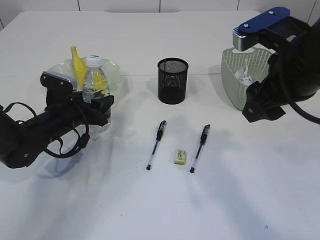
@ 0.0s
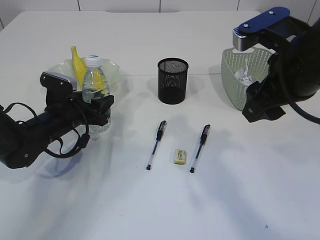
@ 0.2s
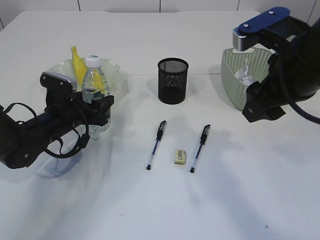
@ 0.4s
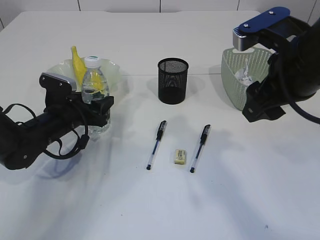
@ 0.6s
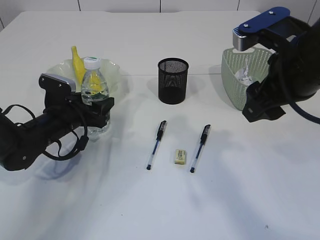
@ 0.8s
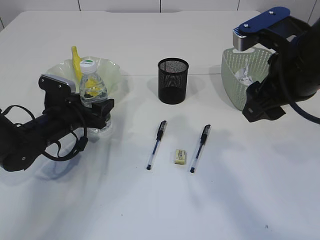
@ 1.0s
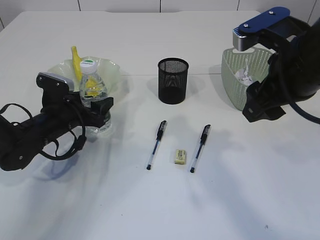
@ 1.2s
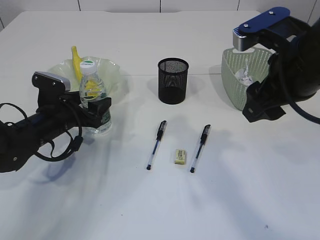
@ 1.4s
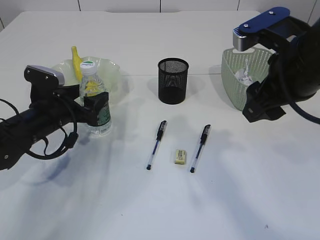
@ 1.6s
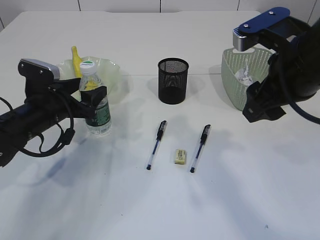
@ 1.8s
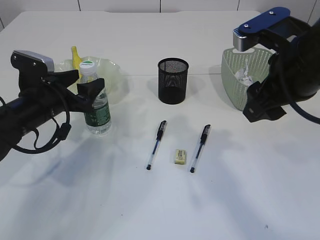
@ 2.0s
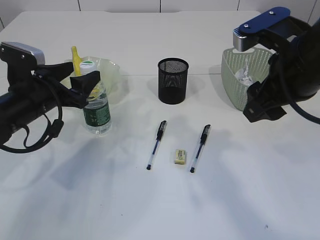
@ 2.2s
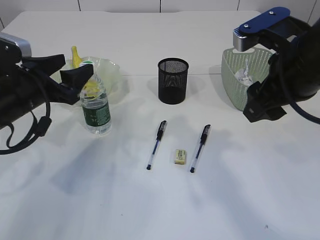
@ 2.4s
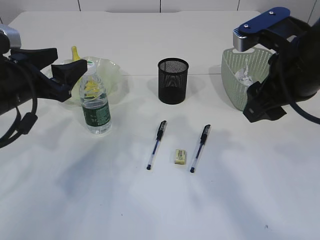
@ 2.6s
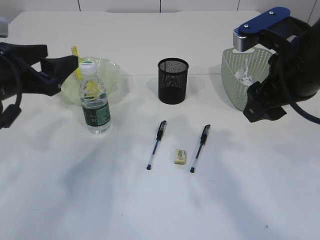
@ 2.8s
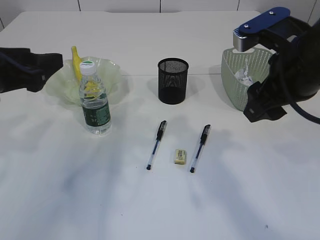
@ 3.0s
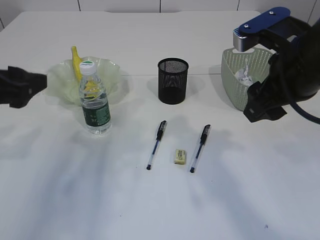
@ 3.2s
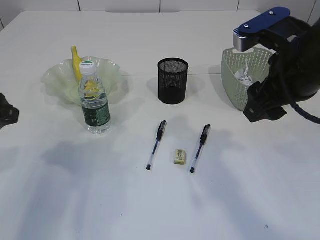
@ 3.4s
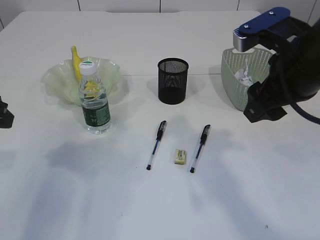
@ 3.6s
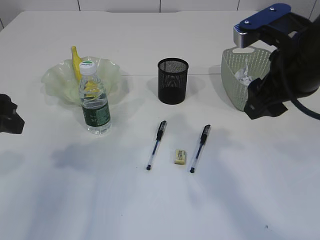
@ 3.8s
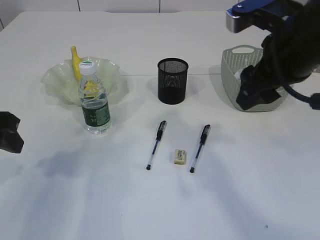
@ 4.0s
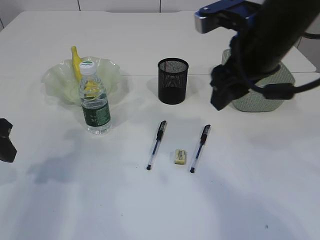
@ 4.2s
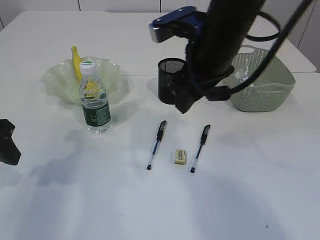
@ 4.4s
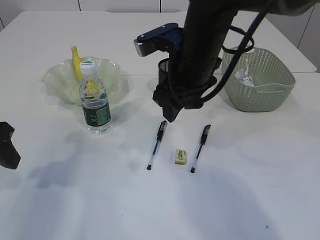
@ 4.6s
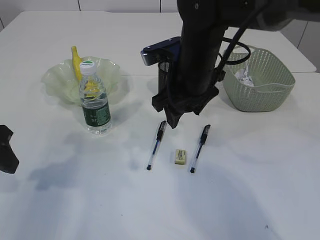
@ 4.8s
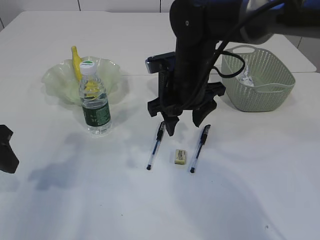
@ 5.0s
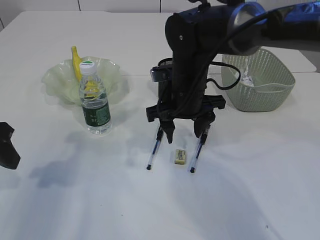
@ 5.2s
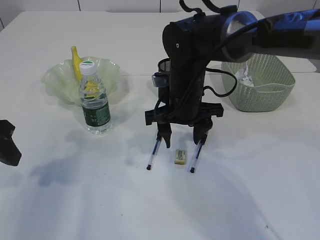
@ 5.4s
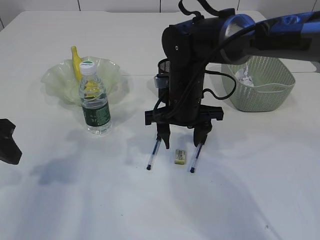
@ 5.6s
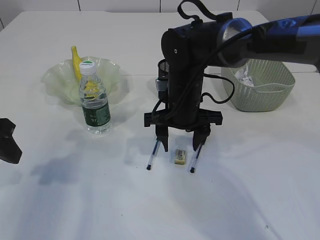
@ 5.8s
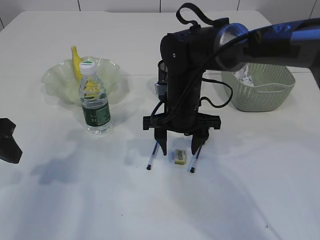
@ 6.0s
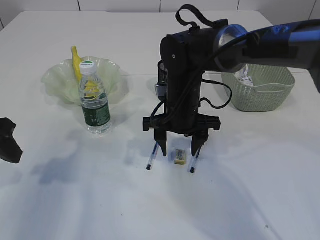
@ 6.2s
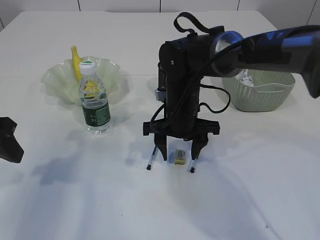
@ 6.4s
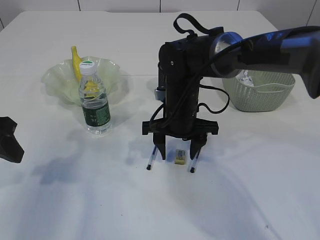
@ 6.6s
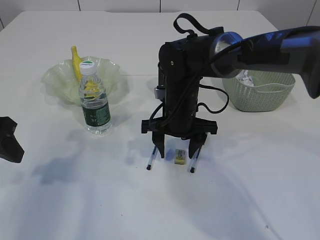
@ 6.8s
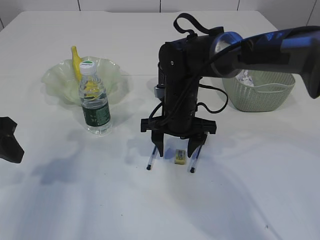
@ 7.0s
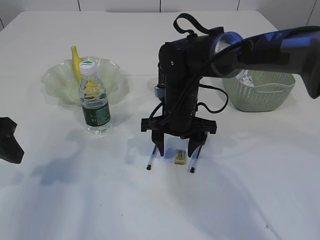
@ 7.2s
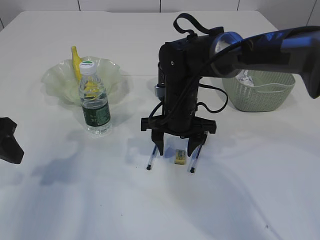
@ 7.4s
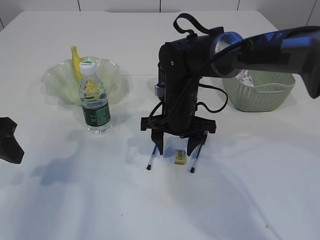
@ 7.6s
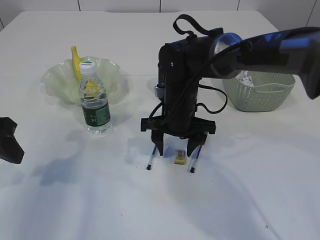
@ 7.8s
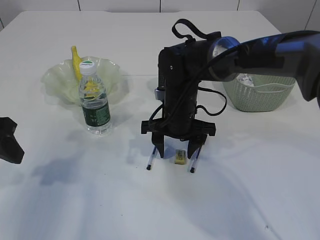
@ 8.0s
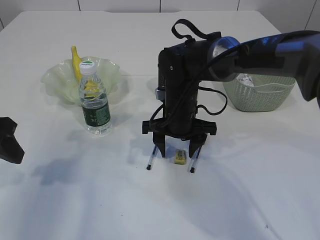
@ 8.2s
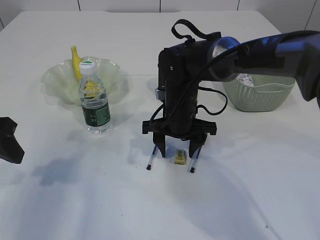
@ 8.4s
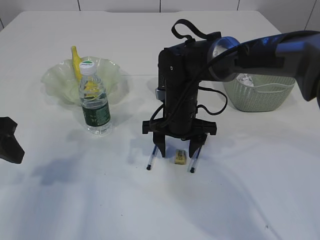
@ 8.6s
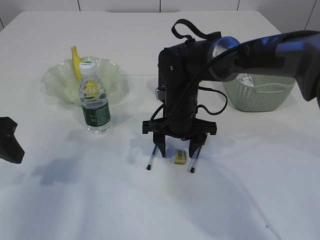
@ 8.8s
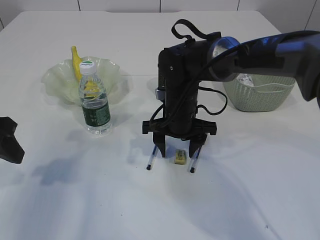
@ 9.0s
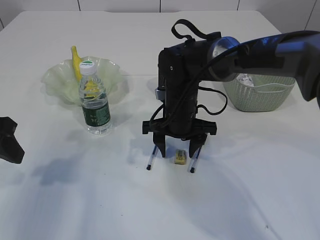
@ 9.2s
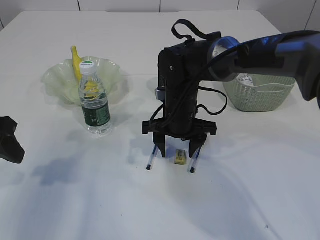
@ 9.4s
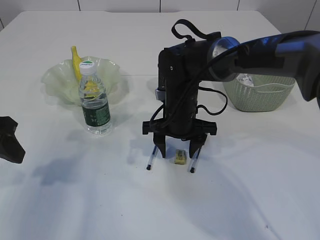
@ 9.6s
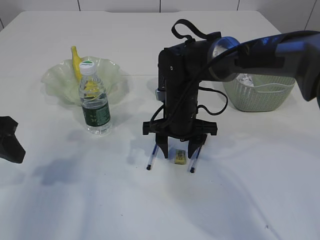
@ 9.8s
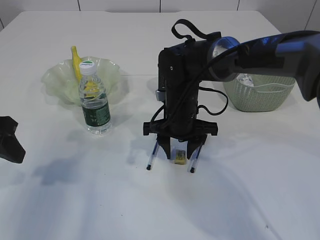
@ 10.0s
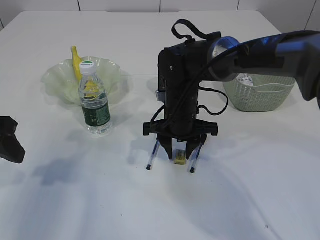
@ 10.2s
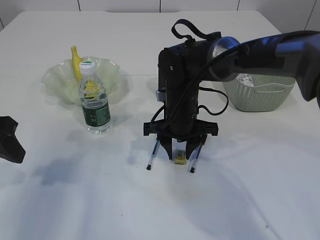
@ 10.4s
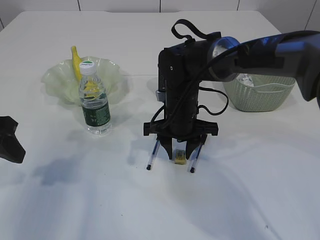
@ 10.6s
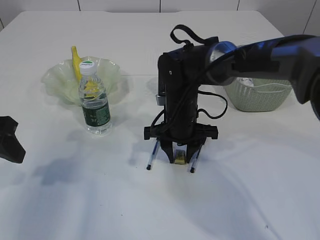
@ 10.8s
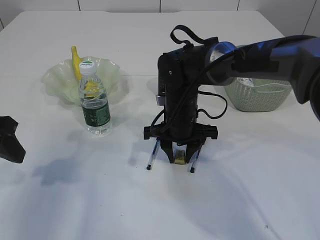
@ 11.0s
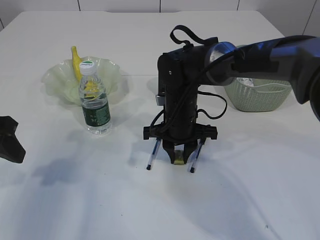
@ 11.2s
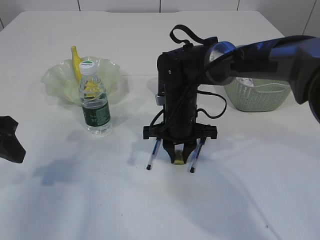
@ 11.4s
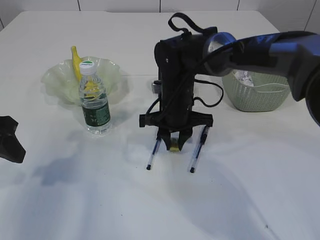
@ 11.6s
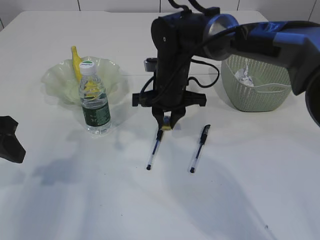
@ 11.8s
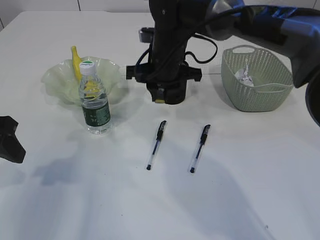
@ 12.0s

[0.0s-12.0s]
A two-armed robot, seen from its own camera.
Step, 0.0s to 2.6s: Place the bottle.
Step, 2.8s to 11.6s: Pick up the eraser.
0.0s to 1.6s: The left gripper opens up.
1.6s to 3.0s: The left gripper is displaced upward and backward by some 15 cm.
3.0s to 4.4s: The left gripper shifts by roughly 5 cm. Meanwhile the right gripper is displaced to the left and forward by approximately 10 cm.
4.4s to 6.0s: The right gripper moves downward, roughly 15 cm.
6.0s to 7.6s: The grippers make only small movements.
7.6s to 10.4s: Both grippers stay put.
10.4s to 12.0s: The right gripper heads upward, covering about 10 cm.

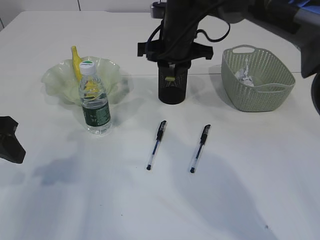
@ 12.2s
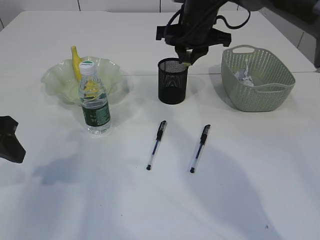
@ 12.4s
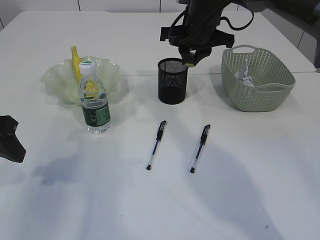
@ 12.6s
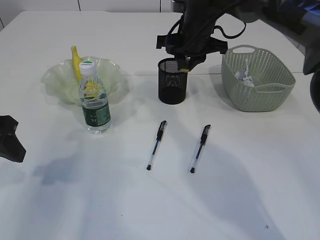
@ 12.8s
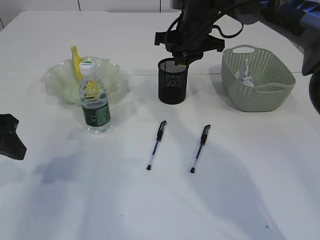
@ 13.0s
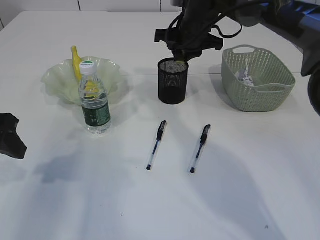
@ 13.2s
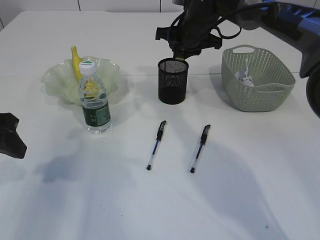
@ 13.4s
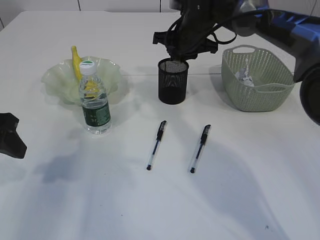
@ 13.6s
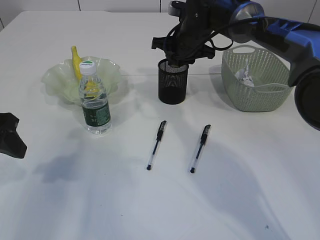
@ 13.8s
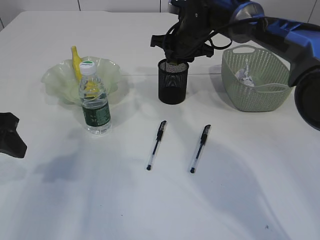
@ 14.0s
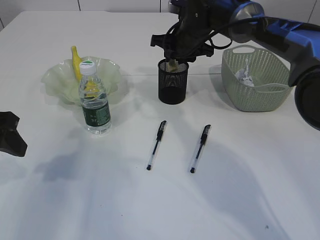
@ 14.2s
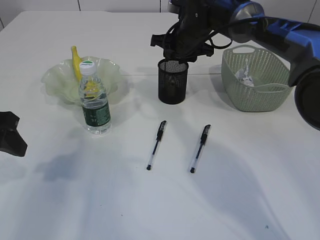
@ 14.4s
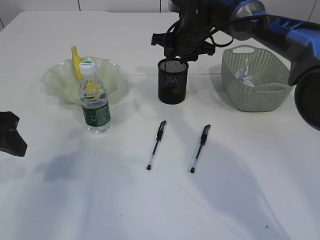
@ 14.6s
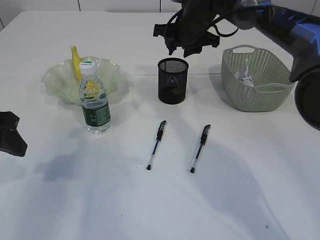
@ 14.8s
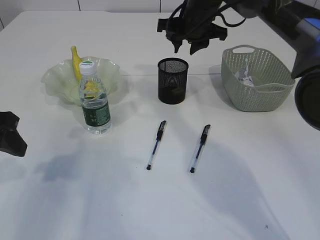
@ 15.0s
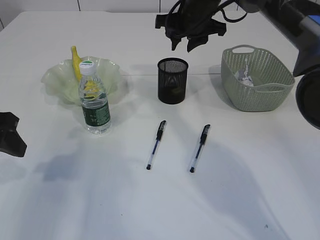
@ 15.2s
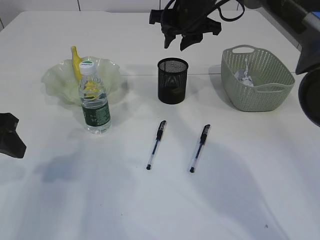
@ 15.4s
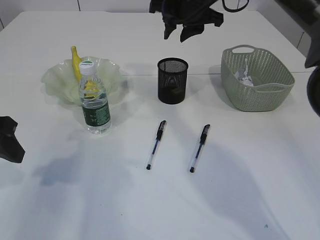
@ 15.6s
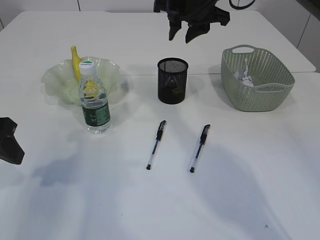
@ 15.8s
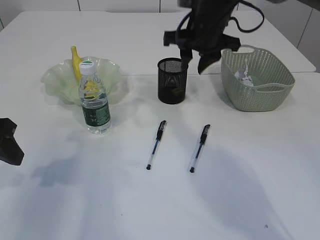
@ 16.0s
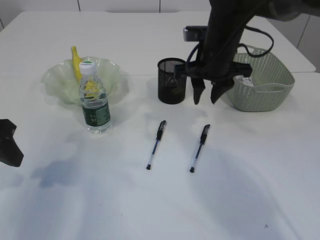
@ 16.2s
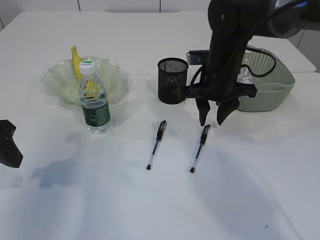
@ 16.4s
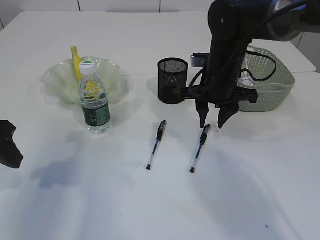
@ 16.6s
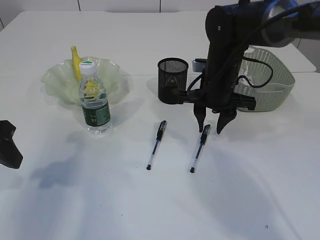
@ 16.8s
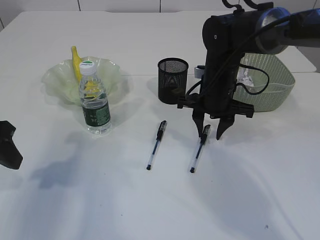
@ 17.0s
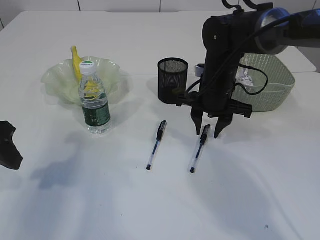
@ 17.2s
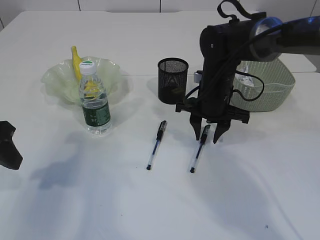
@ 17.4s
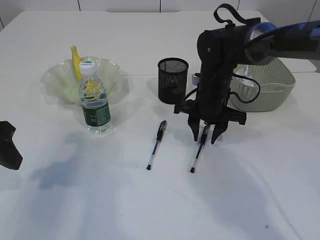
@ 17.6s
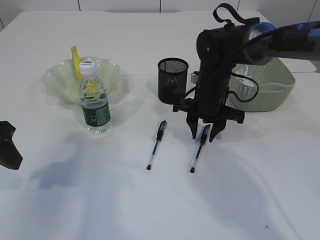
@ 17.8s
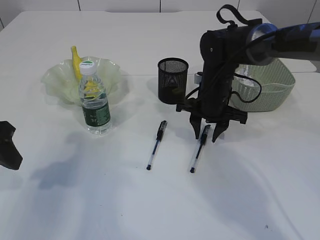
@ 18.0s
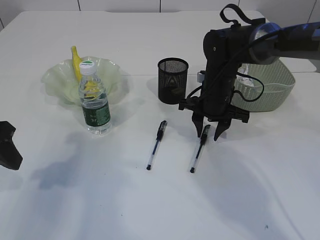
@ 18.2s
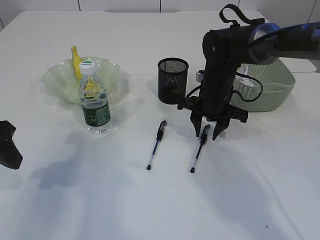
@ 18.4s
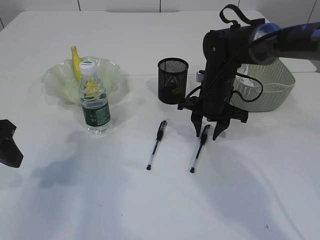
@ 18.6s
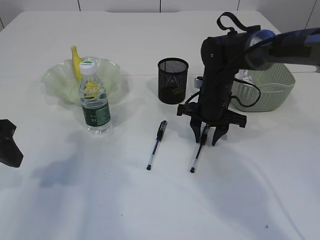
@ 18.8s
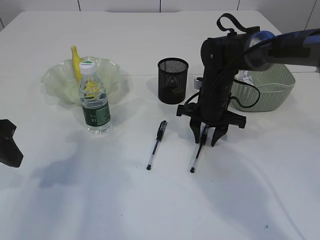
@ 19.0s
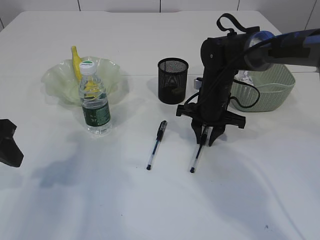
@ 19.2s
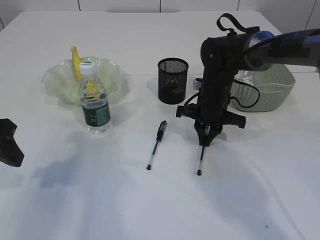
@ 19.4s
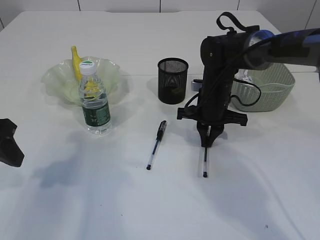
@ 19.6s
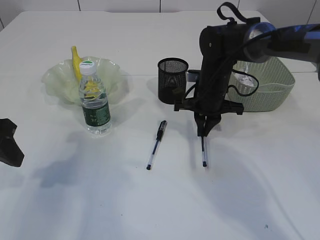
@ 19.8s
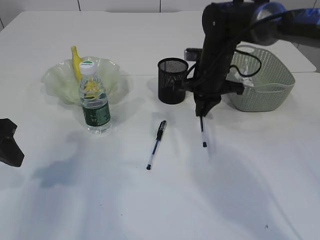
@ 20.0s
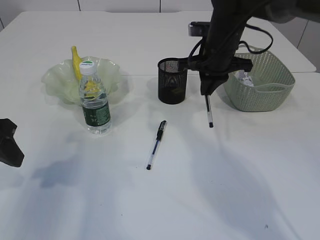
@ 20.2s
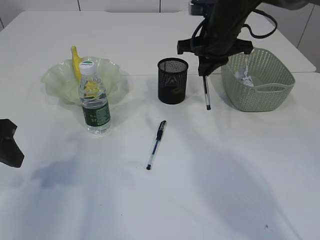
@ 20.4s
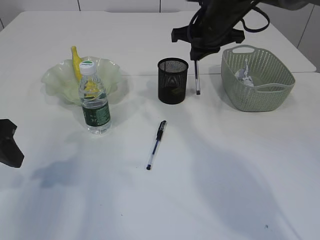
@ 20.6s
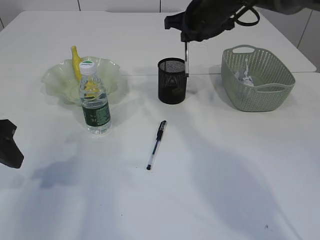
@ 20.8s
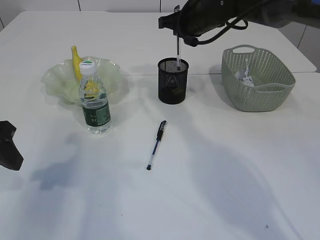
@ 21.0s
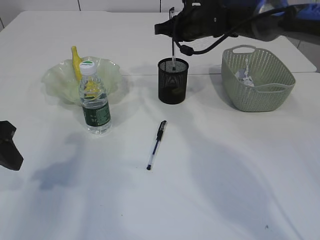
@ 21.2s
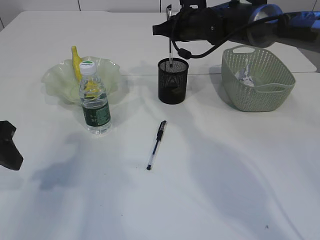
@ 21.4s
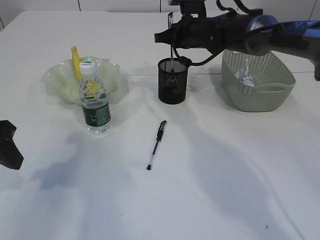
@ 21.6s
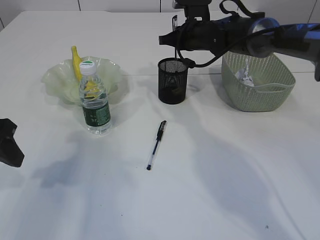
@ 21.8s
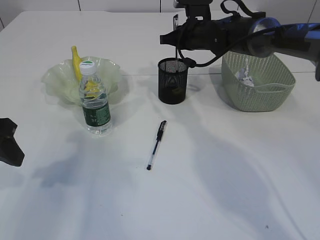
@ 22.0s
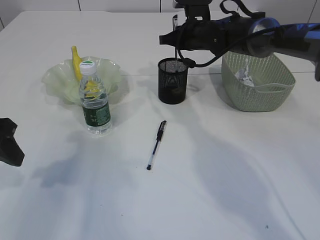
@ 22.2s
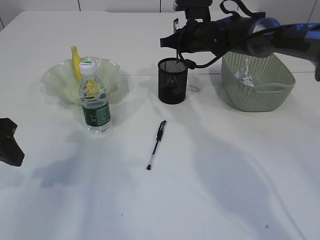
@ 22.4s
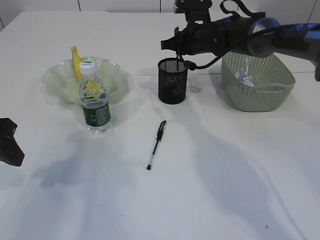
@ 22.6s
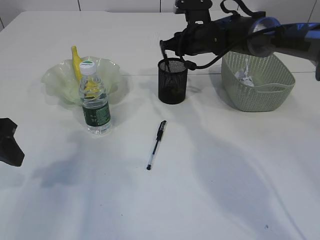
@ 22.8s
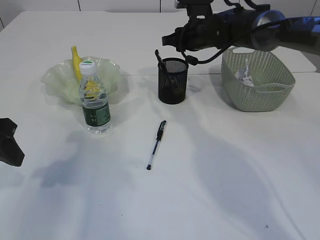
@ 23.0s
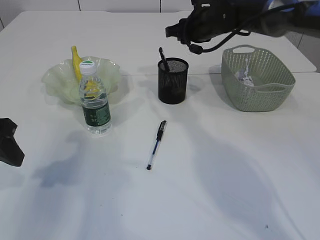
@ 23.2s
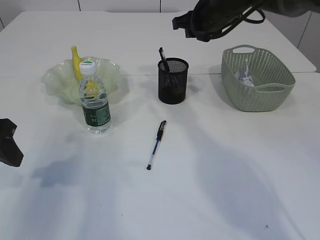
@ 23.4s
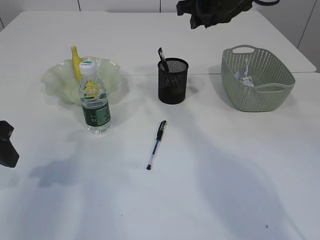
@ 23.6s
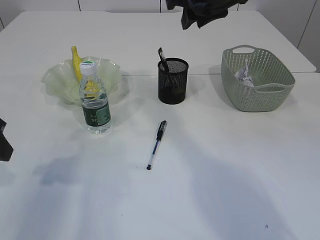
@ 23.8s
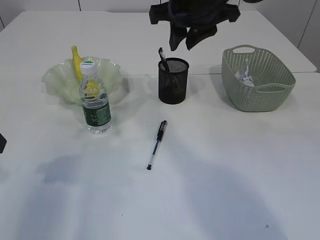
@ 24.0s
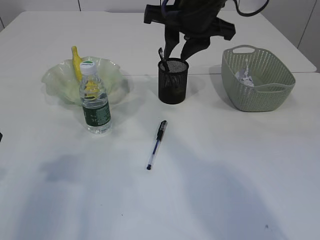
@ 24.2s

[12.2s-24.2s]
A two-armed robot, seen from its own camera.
Step, 12.2s to 15.8s: Place the eraser into the pen holder.
Step, 16.0s to 20.0s: Pick up the pen with right arm.
Step, 20.2s to 23.0s: Place the pen into the pen holder.
12.2s to 13.8s: The right gripper goes about 5 cm forward.
13.8s to 15.2s: The right gripper is displaced upward by about 5 cm.
15.2s to 16.6s: The right gripper shifts about 10 cm backward and downward.
16.6s to 18.2s: The right gripper is displaced downward by about 5 cm.
18.2s to 19.8s: The right gripper closes.
19.8s to 21.2s: The right gripper goes some 15 cm upward and forward.
21.2s to 22.6s: The grippers stay close to where they were, moving slightly.
22.6s to 24.2s: The right gripper travels backward and upward by roughly 20 cm.
